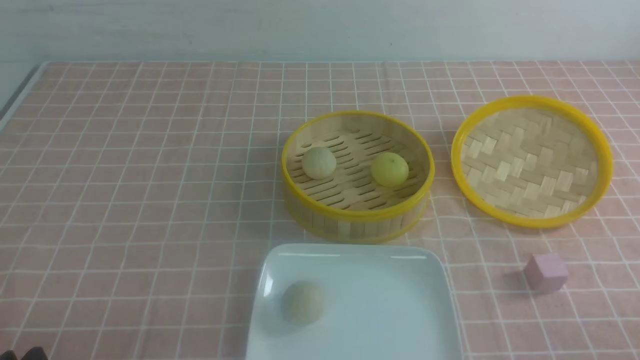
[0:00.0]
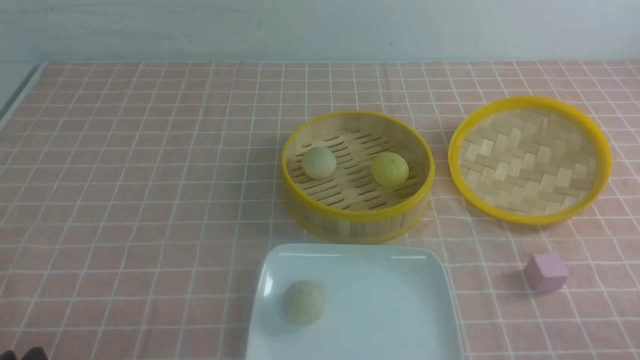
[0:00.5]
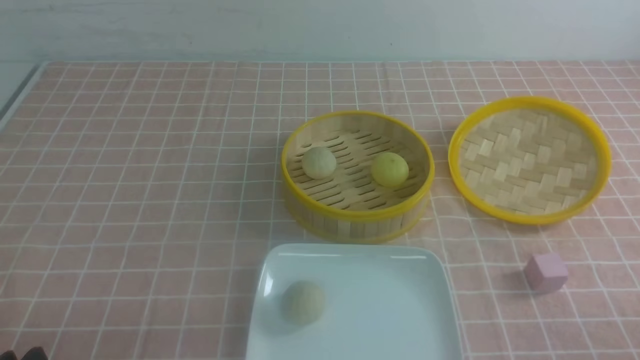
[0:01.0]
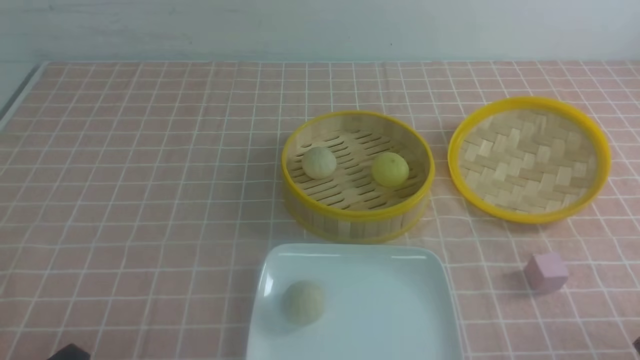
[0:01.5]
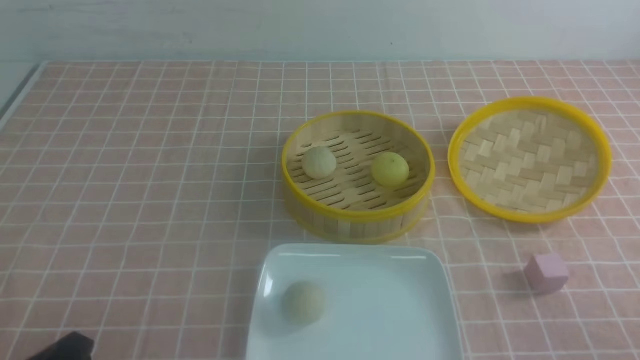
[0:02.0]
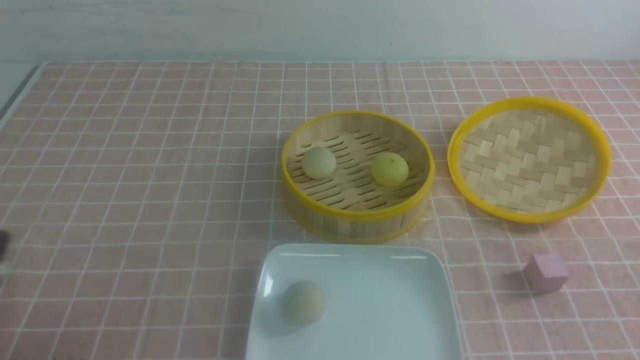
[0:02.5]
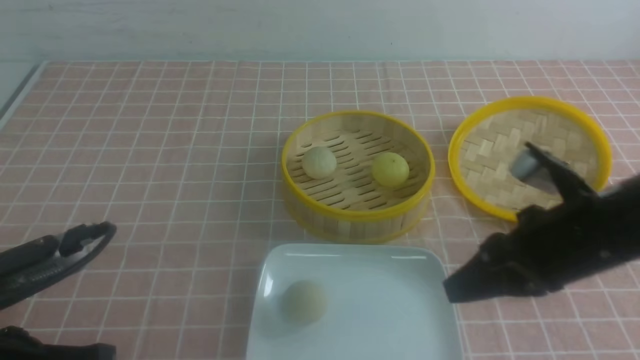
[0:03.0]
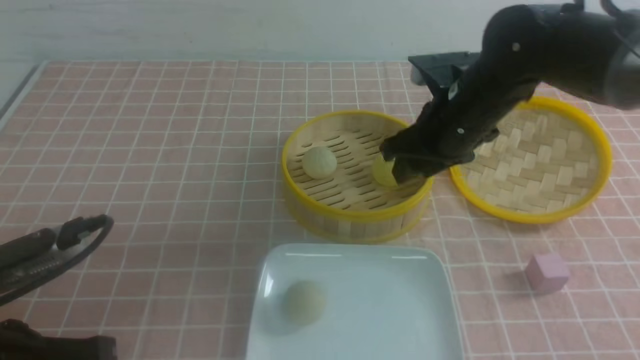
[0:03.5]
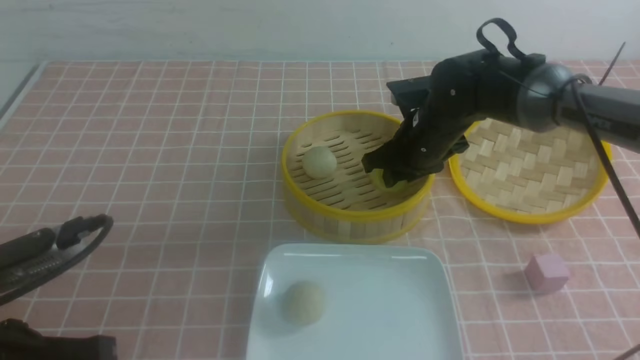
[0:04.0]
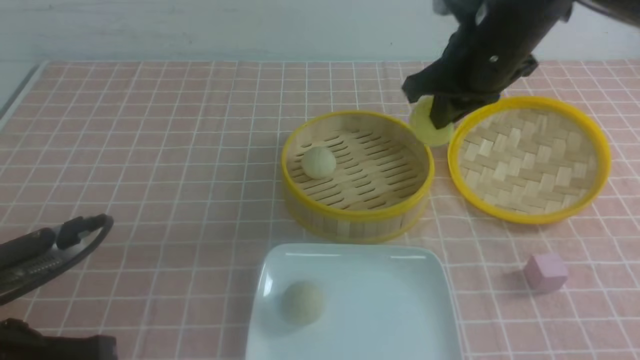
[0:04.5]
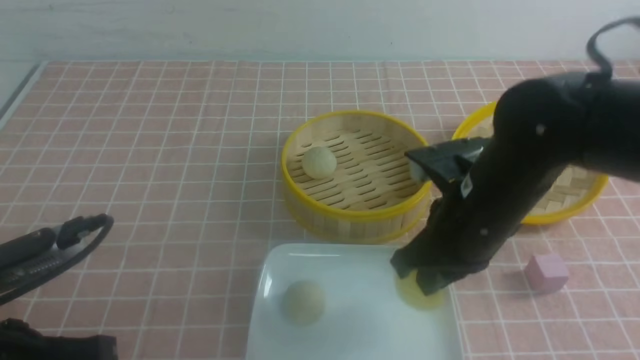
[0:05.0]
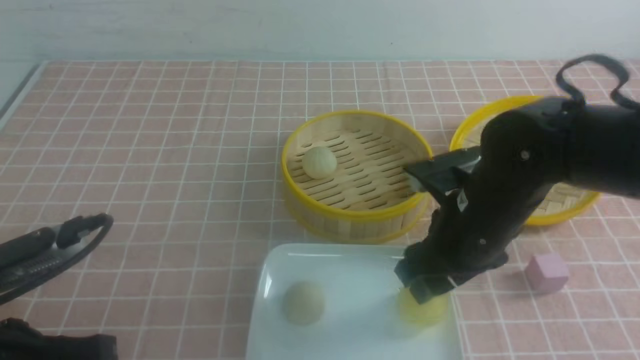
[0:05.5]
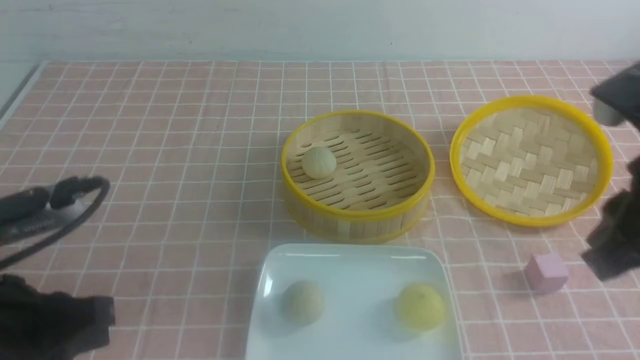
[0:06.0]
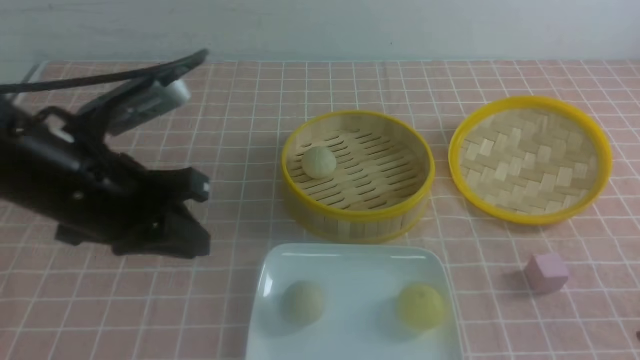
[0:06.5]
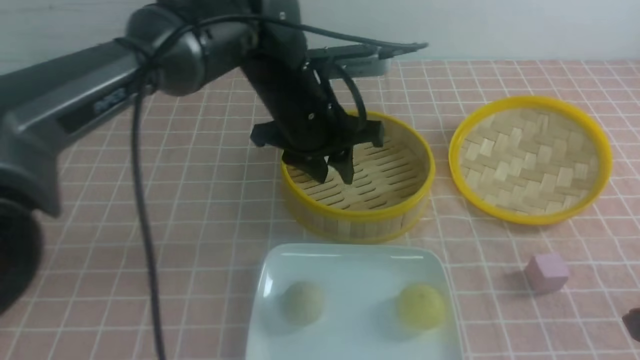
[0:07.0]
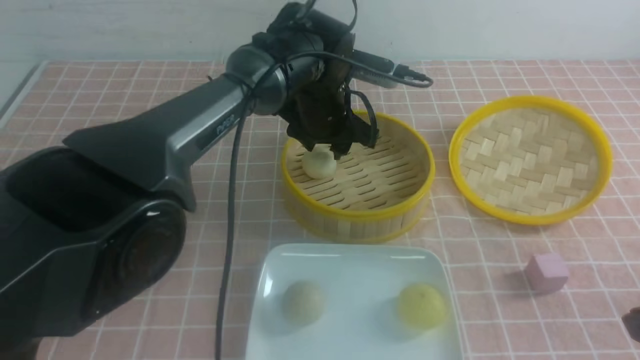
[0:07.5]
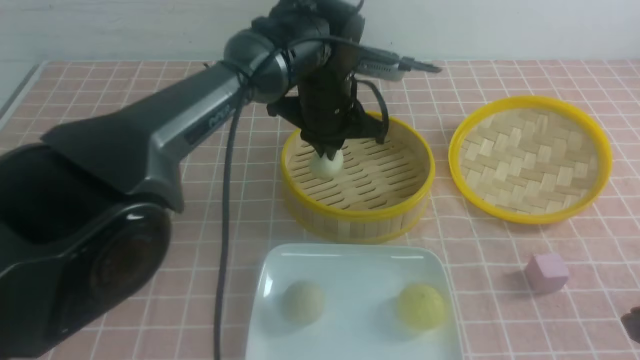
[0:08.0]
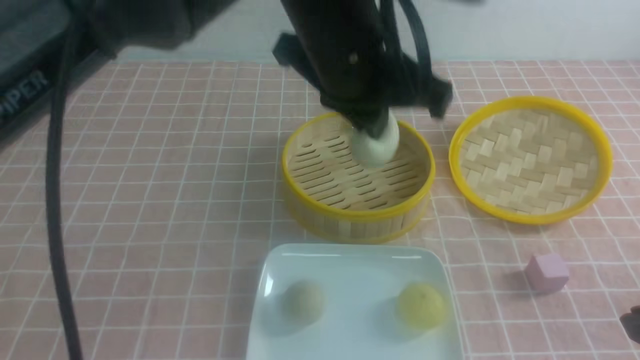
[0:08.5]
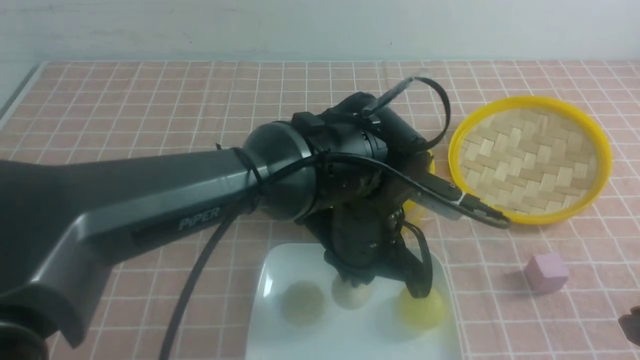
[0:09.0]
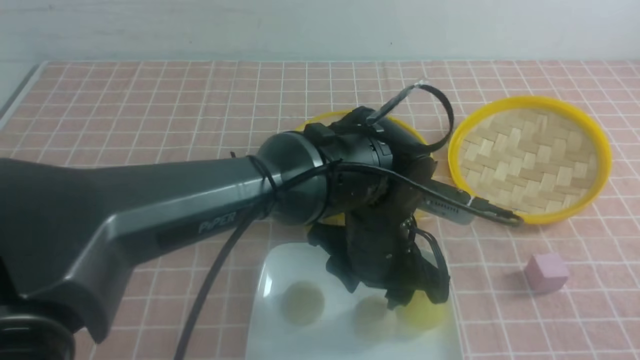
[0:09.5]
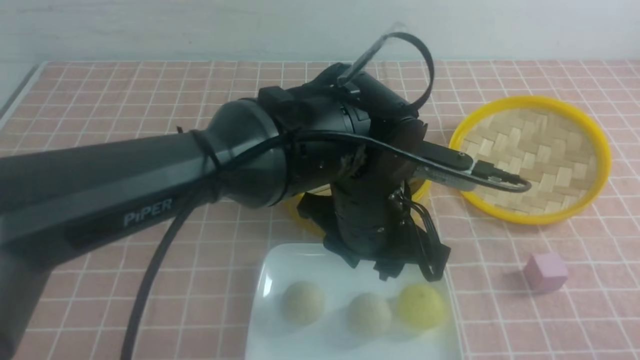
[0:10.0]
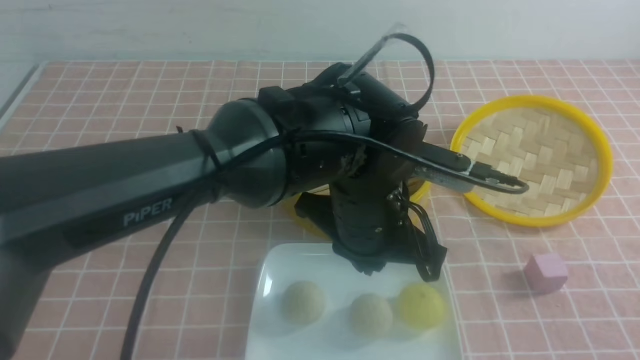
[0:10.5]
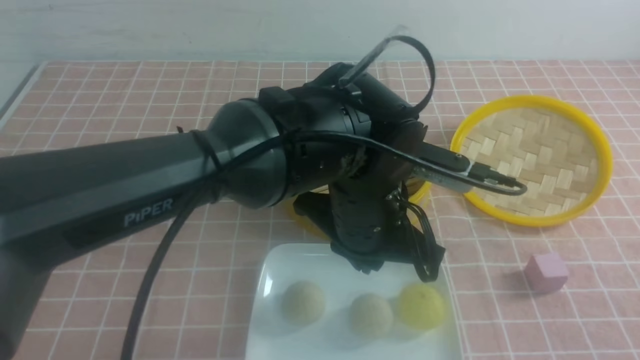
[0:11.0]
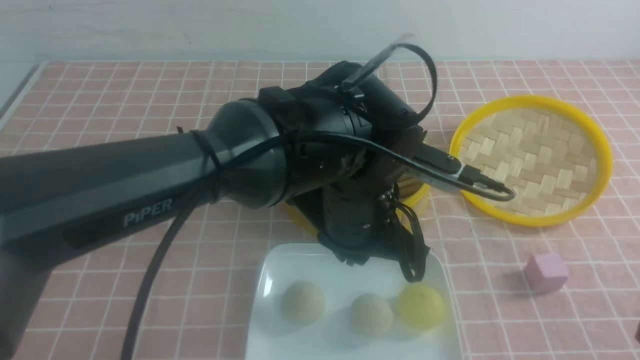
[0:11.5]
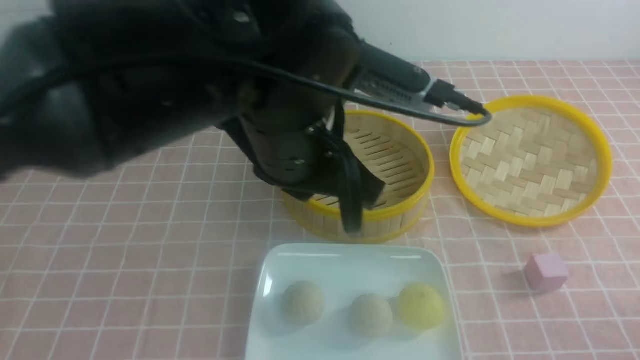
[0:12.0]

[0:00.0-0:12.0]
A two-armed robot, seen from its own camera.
Step, 0:00.0 to 0:04.0: use the right arm to grab the steamed stuffed bun that is closest to it.
Step, 0:04.5 to 0:05.5: use the right arm to put the steamed stuffed bun into the plate.
Step, 0:06.0 to 0:07.5: use the left arm to grab the steamed stuffed bun that is closest to it.
Step, 0:08.0 to 0:09.5: use the left arm to put the steamed stuffed bun into the plate.
0:02.0 to 0:04.0: The right gripper moves forward and to the left, roughly 40 cm, and closes, then reopens, while the left gripper is displaced forward by about 5 cm.
0:04.0 to 0:06.0: The right gripper heads backward and upward, covering some 30 cm, and opens, then closes once more.
0:06.0 to 0:08.0: The right gripper shifts some 10 cm backward and downward. Meanwhile the left gripper heads forward and to the right, covering some 35 cm, and opens and closes again.
0:08.0 to 0:10.0: The left gripper heads backward, covering about 15 cm, and opens up, while the right gripper shifts some 10 cm backward.
0:10.0 to 0:12.0: The right gripper is displaced downward by roughly 15 cm, while the left gripper is displaced upward and to the left by some 15 cm, and closes its fingers.

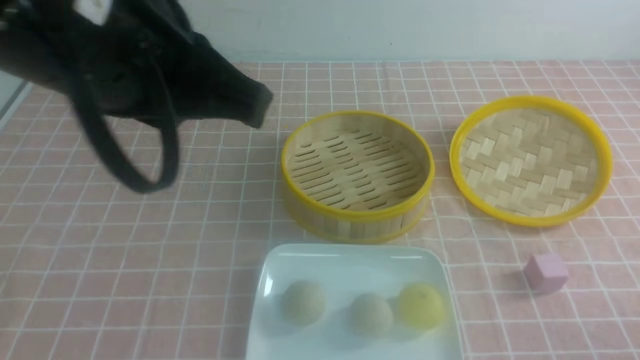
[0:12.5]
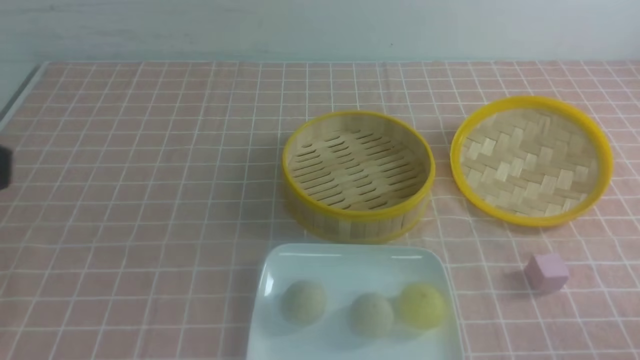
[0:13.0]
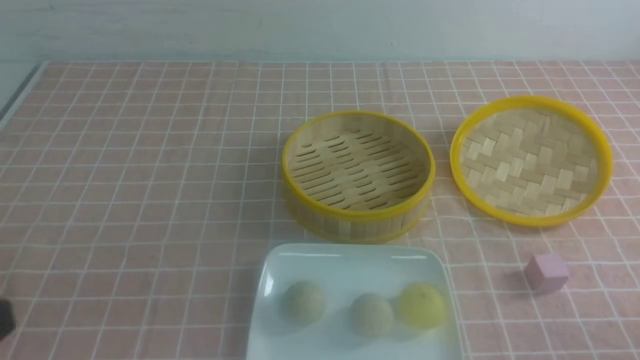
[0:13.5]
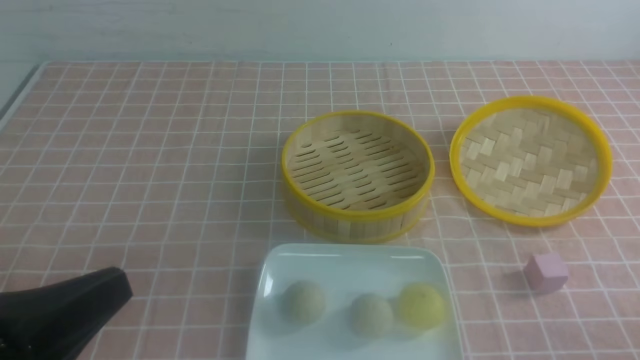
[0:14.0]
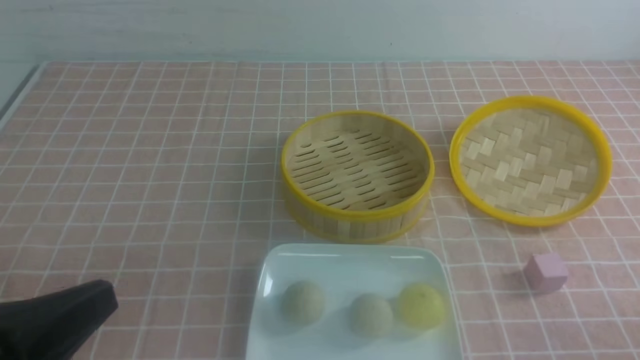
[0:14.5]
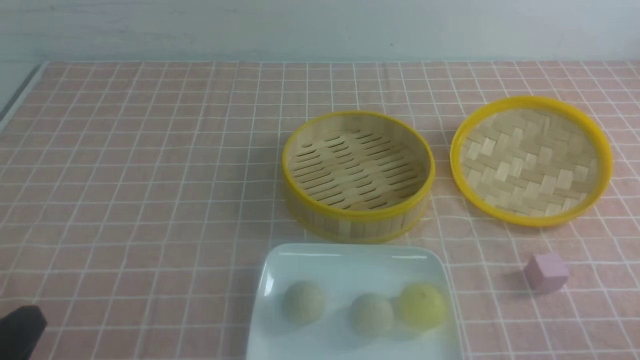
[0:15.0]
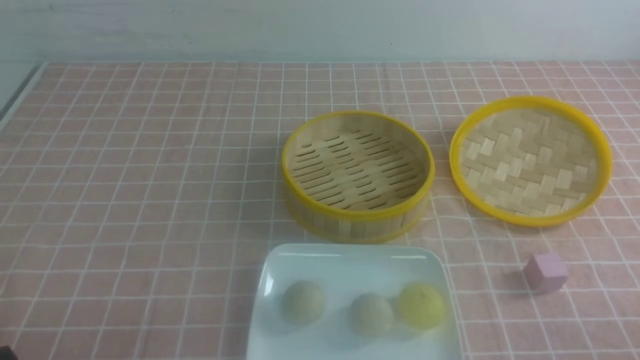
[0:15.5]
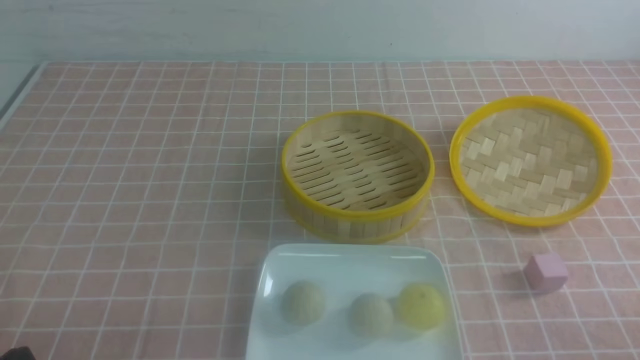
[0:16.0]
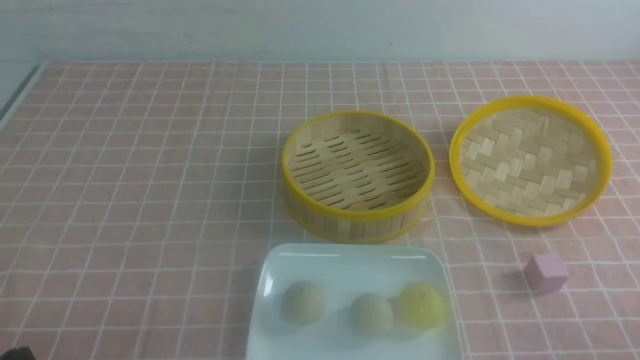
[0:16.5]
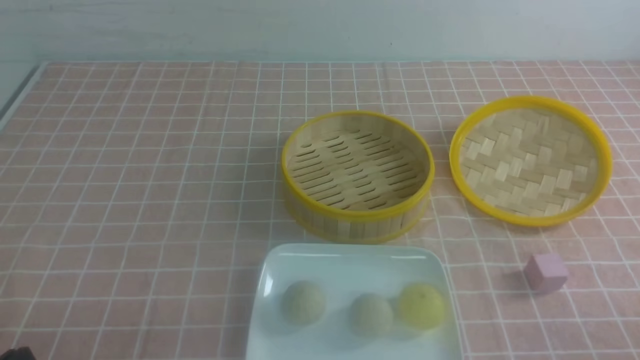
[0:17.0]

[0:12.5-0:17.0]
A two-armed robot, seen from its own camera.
0:12.5 to 0:14.5: The left gripper heads downward, to the left and backward, covering approximately 20 cm.
0:14.5 to 0:17.0: The left gripper is displaced downward by approximately 10 cm.

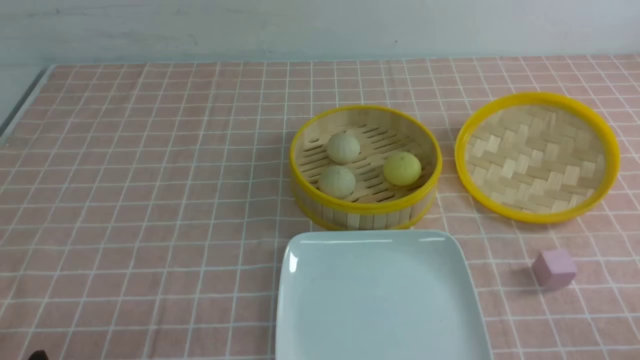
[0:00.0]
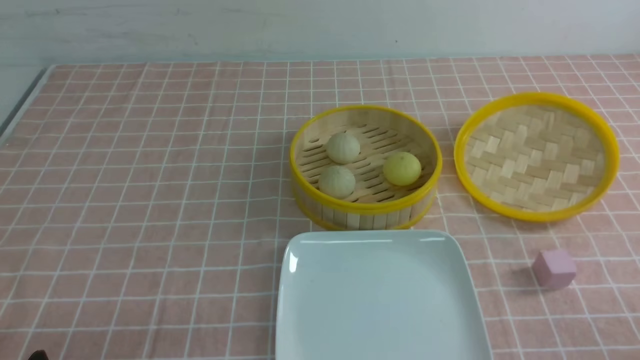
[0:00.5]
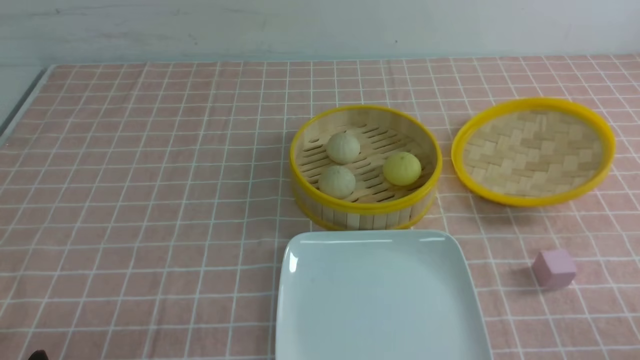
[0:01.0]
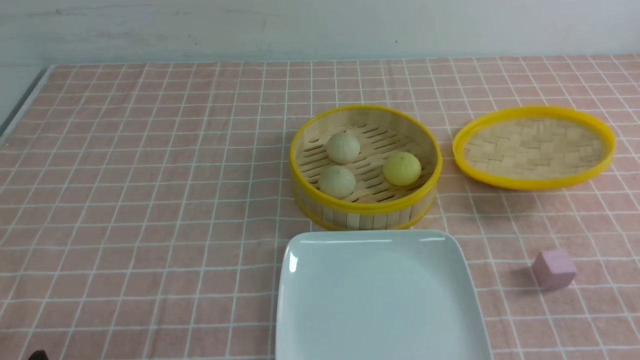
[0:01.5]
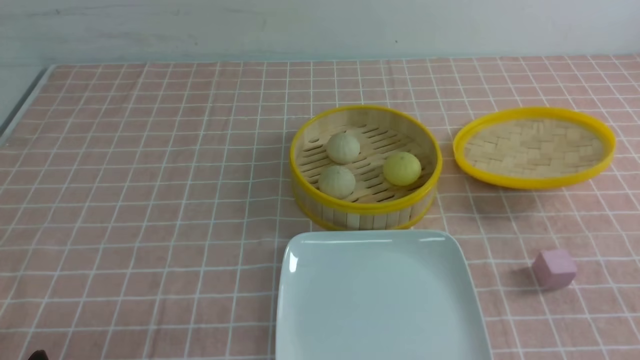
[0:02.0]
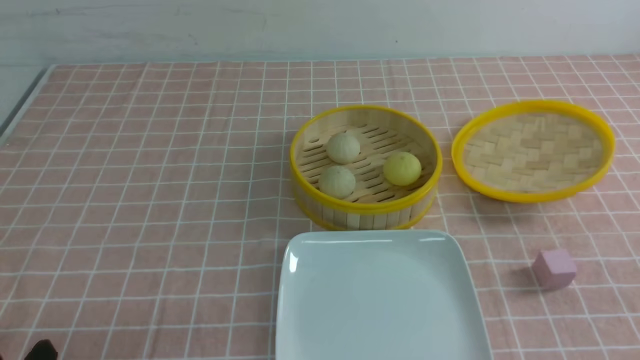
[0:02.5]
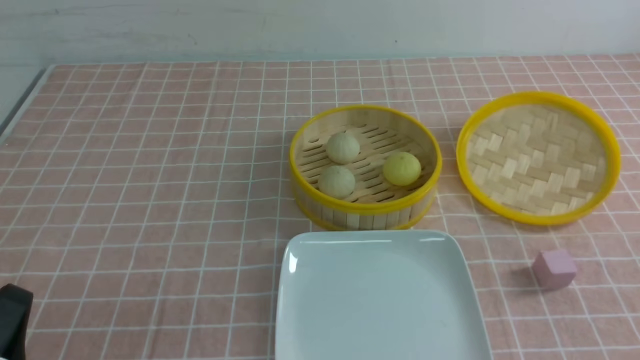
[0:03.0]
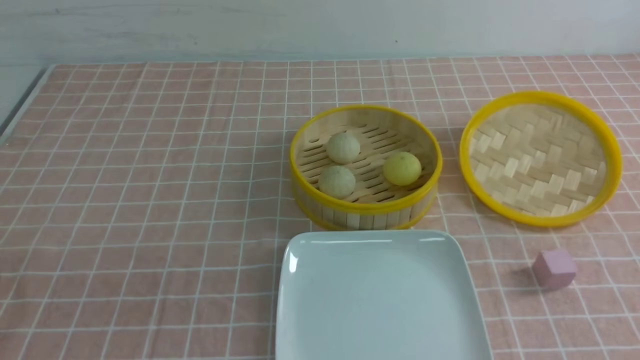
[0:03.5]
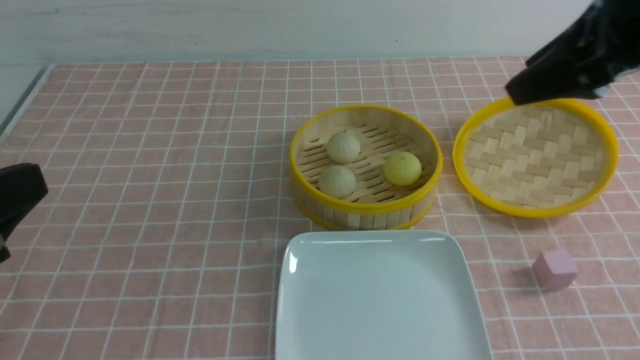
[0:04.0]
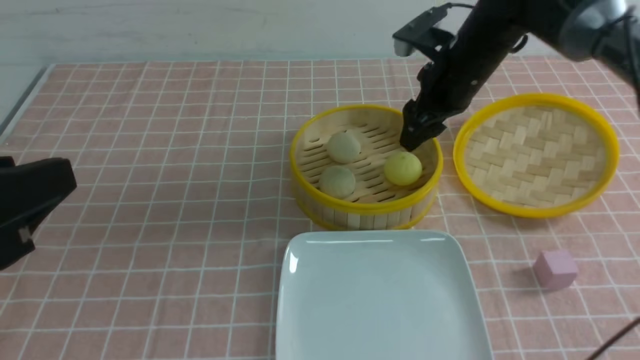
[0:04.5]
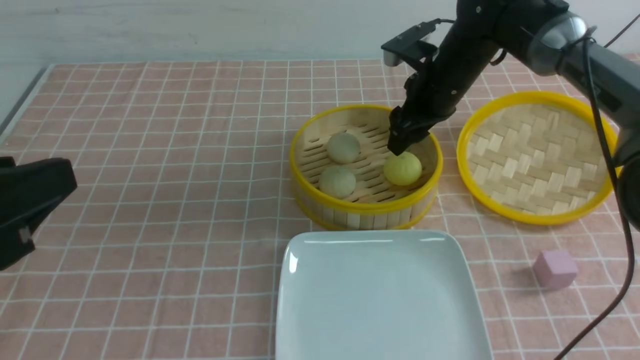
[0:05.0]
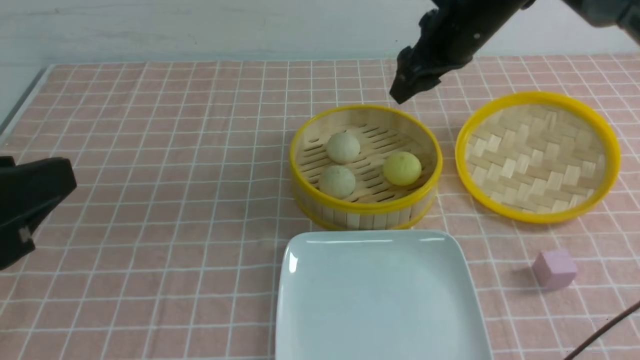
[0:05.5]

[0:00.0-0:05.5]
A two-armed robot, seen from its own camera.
0:00.0 to 0:02.0: The right gripper moves upward, some 15 cm.
0:02.0 to 0:03.5: The right gripper is displaced forward and upward by roughly 15 cm.
0:03.5 to 0:05.5: The left gripper is displaced forward and upward by roughly 10 cm; the right gripper heads forward and to the left, covering some 30 cm.
